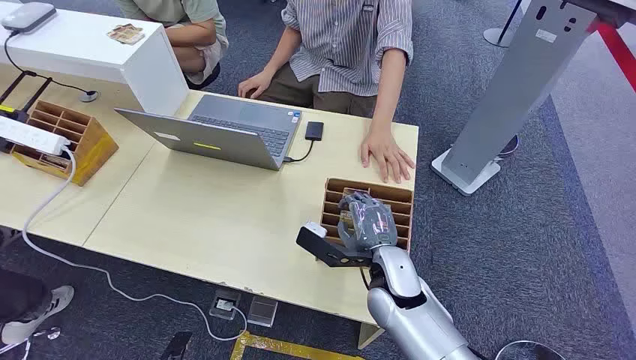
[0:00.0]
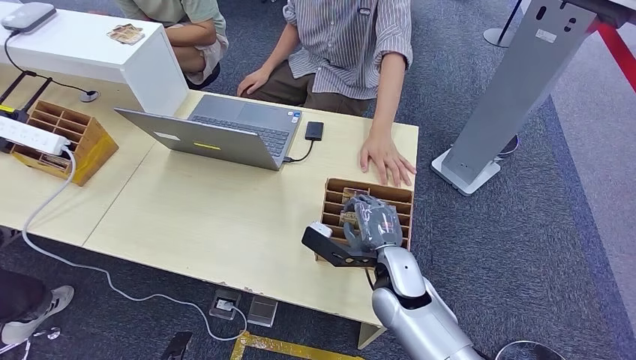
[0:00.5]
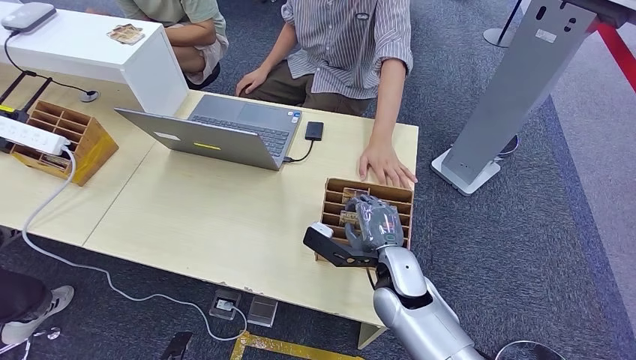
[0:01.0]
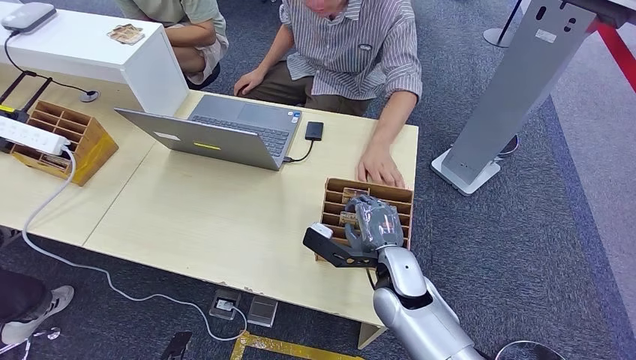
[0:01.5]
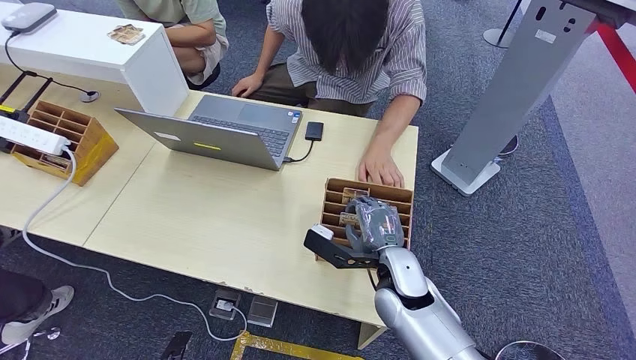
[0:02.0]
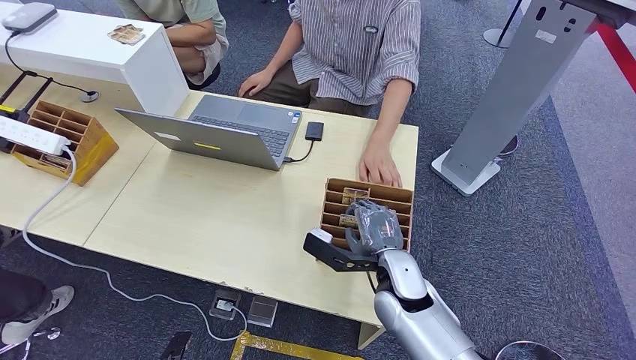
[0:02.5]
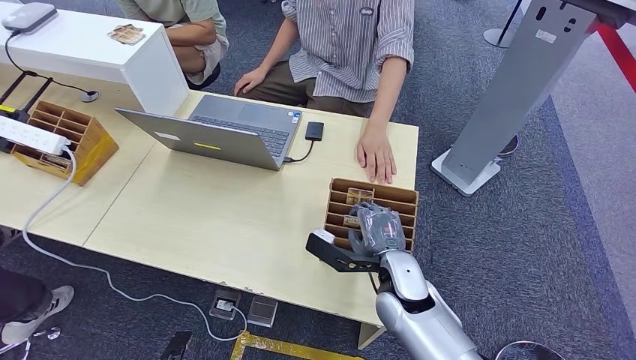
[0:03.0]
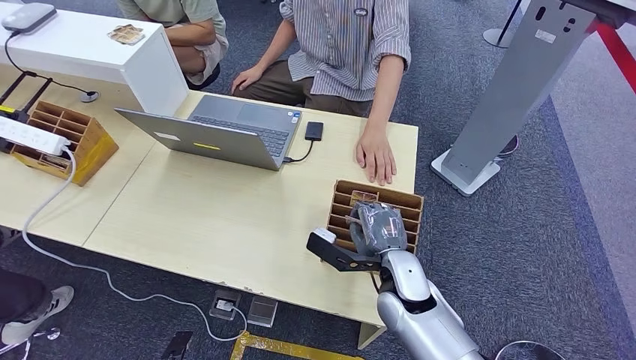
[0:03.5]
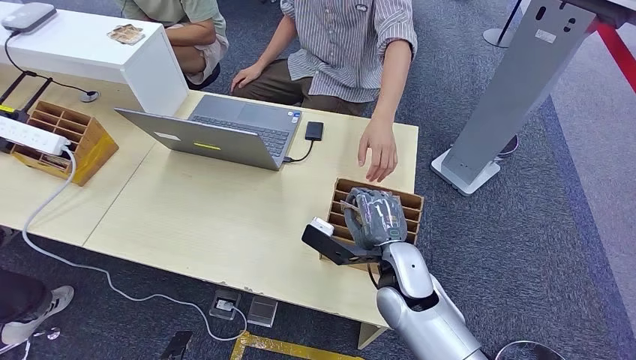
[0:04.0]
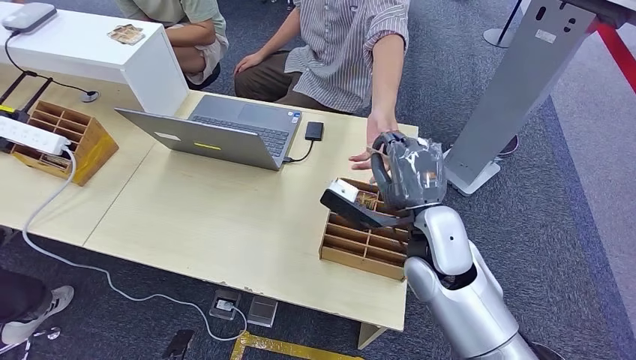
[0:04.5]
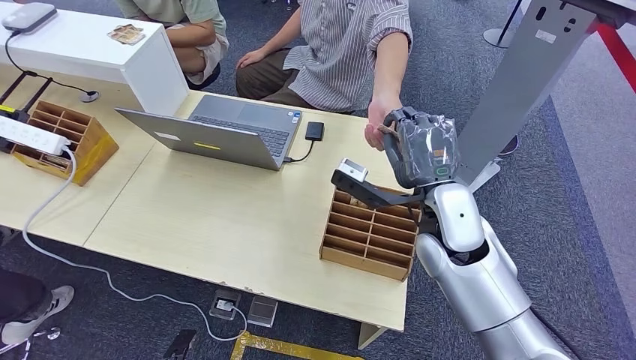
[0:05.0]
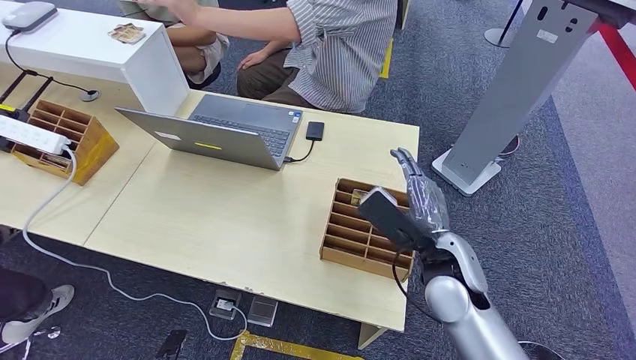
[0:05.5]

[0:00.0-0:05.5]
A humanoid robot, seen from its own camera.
Step, 0:00.0 to 0:04.0: Pick up the key card from the card box.
Step, 0:05.0 to 0:05.5: Hand the key card to the target.
0:02.0 to 0:03.5: Both hands stay about where they are.
0:03.5 to 0:05.5: The right hand goes about 10 cm upward and to the right.
